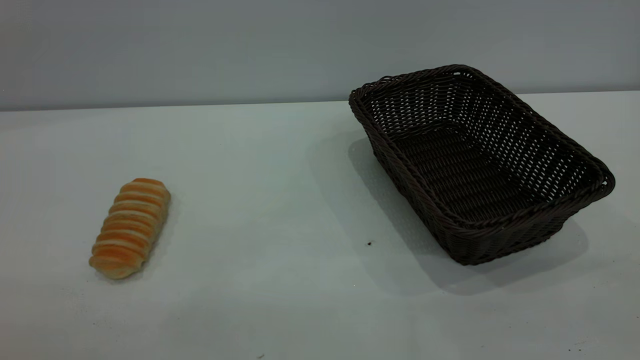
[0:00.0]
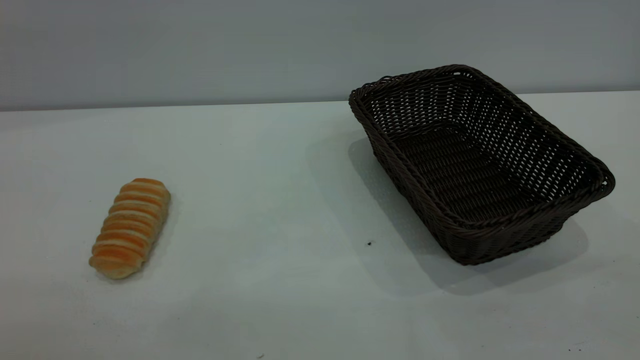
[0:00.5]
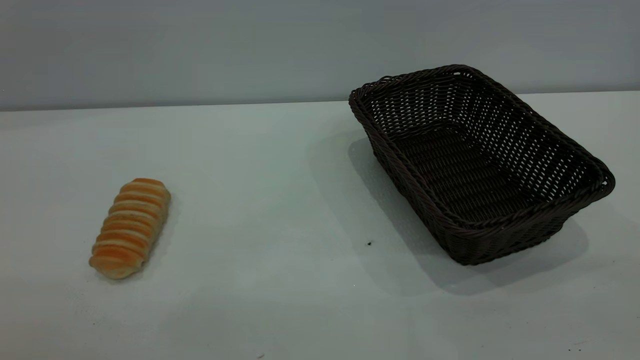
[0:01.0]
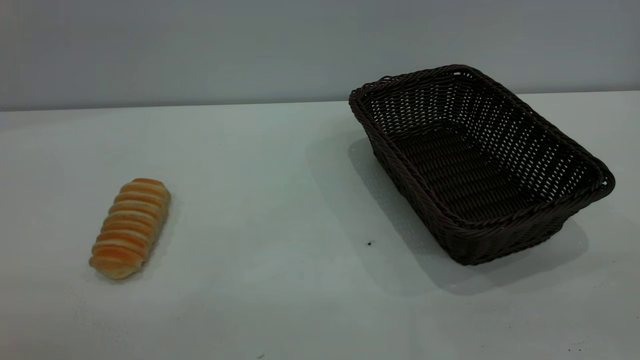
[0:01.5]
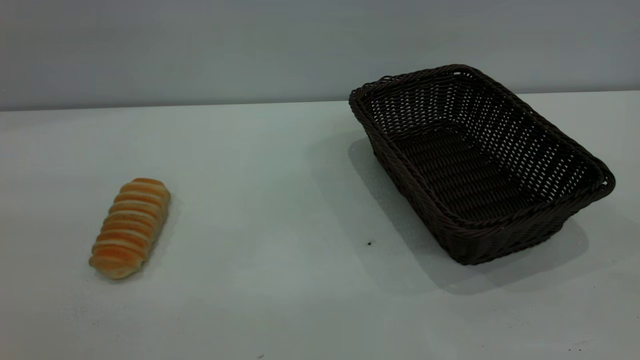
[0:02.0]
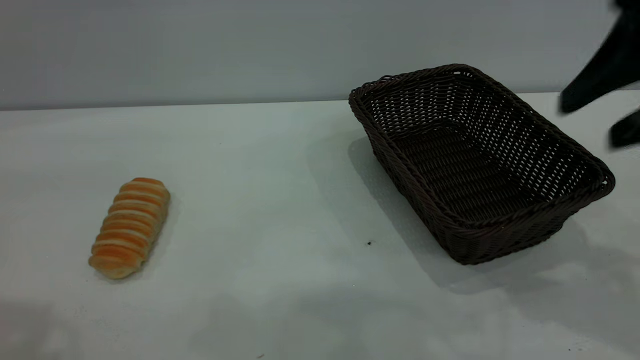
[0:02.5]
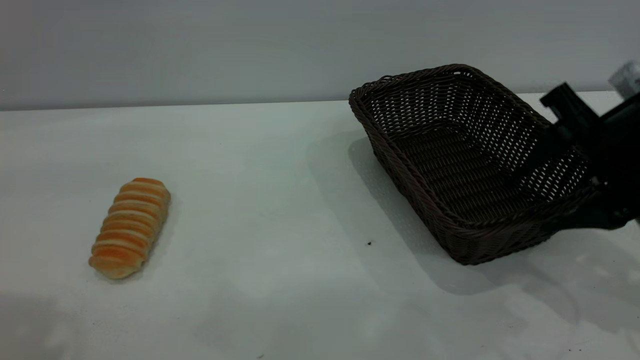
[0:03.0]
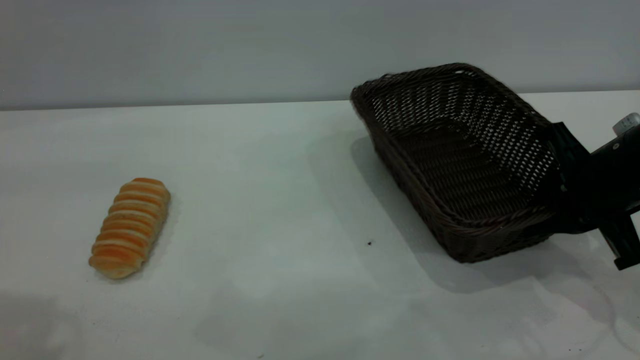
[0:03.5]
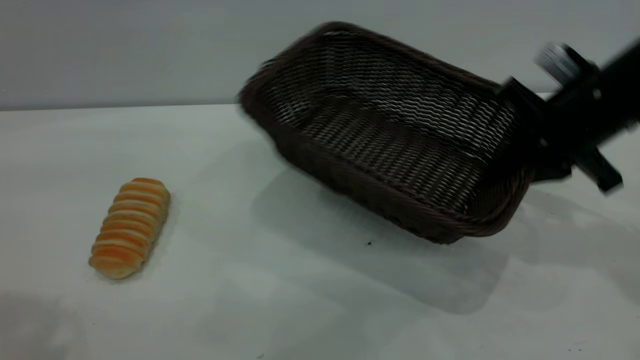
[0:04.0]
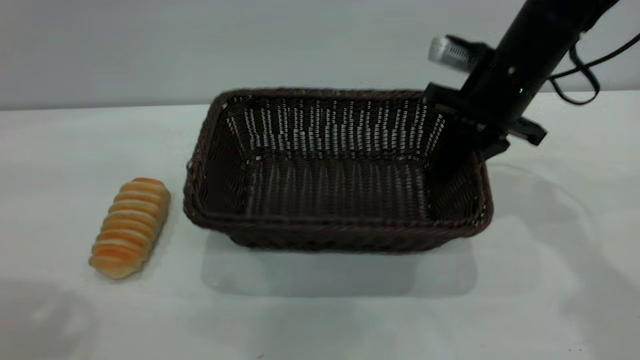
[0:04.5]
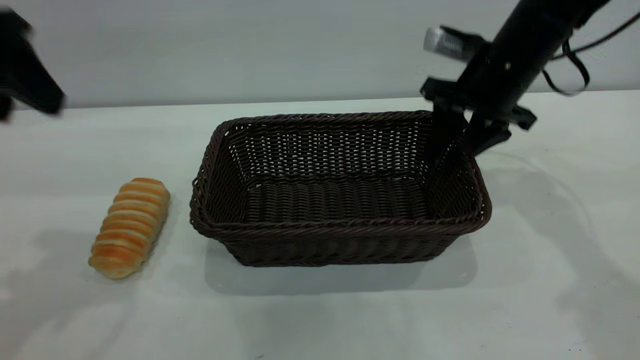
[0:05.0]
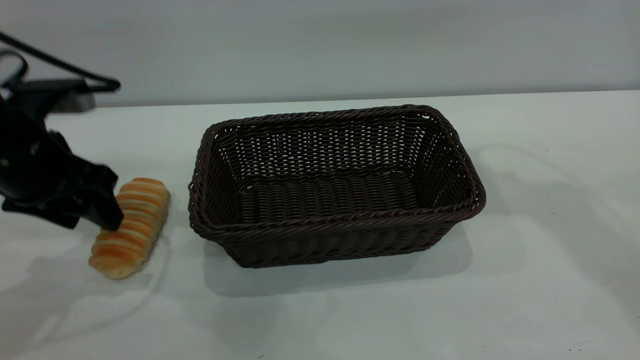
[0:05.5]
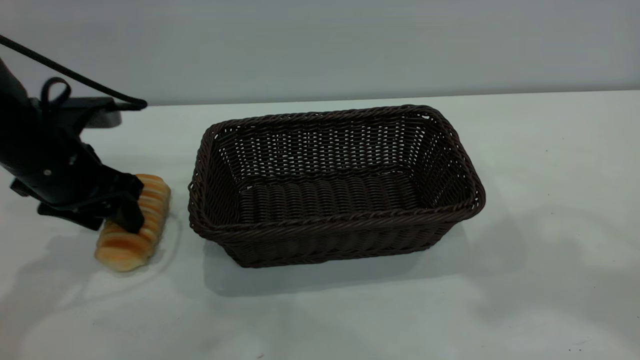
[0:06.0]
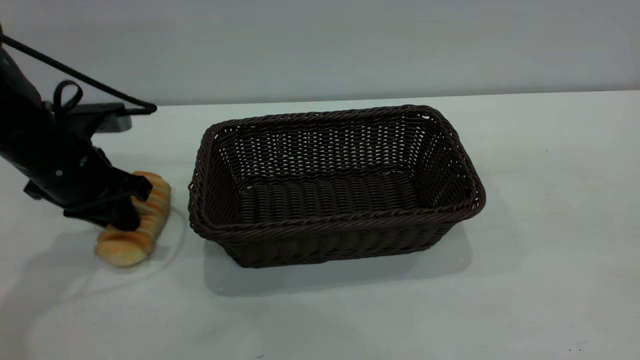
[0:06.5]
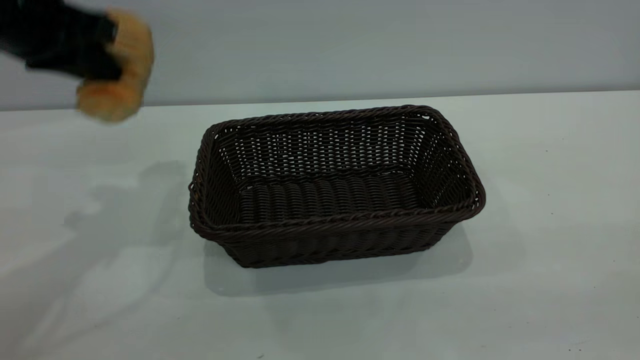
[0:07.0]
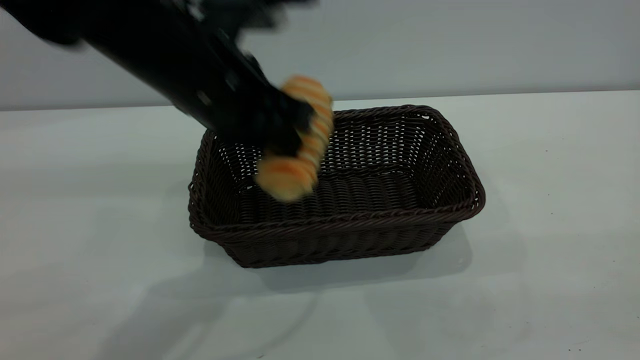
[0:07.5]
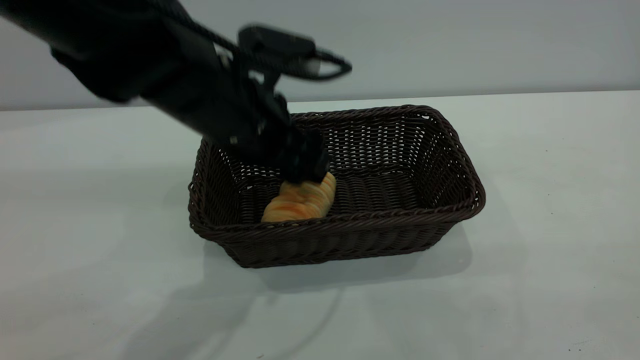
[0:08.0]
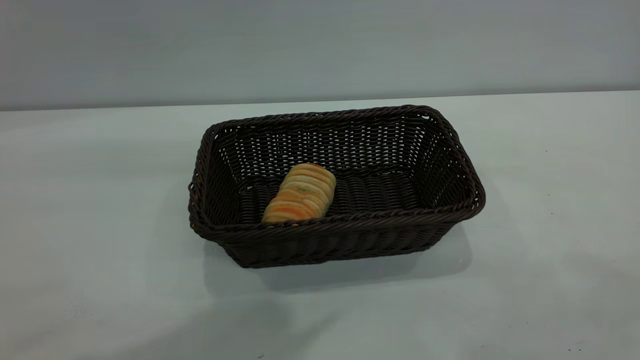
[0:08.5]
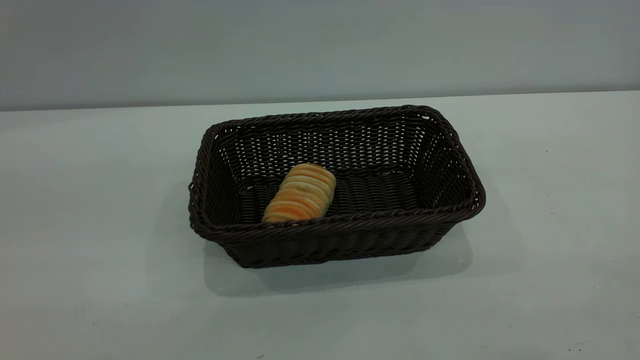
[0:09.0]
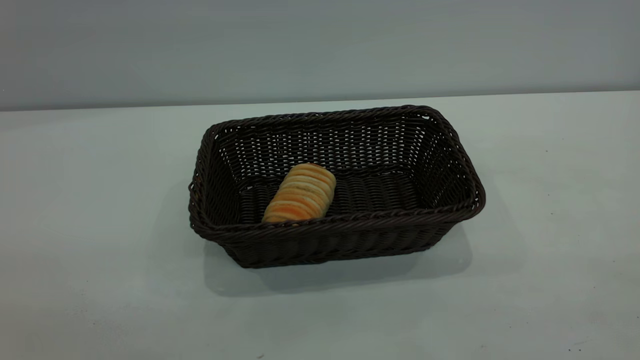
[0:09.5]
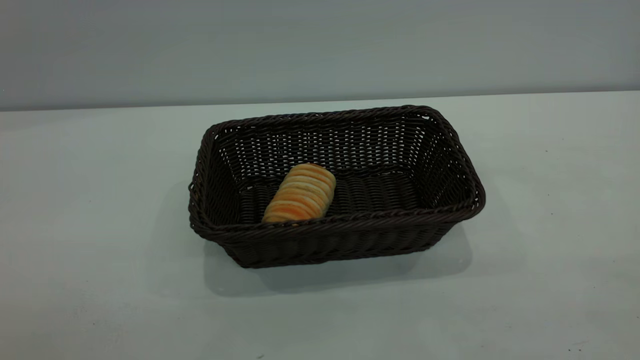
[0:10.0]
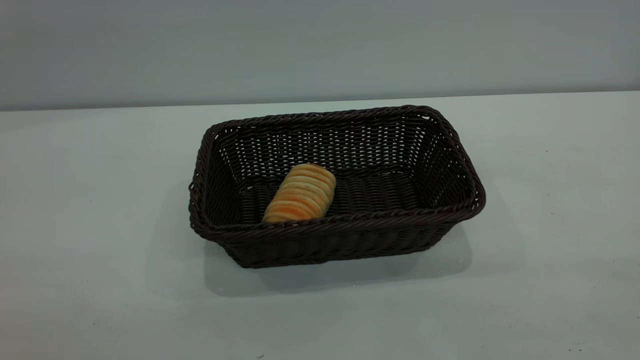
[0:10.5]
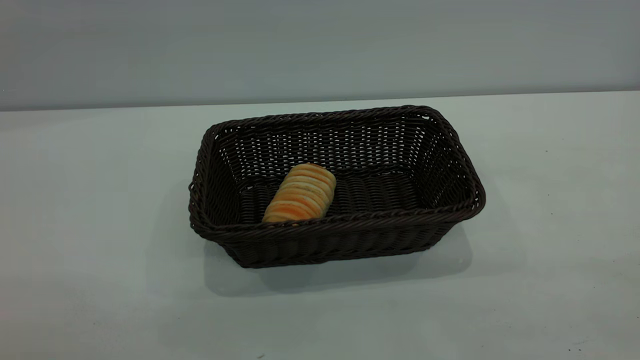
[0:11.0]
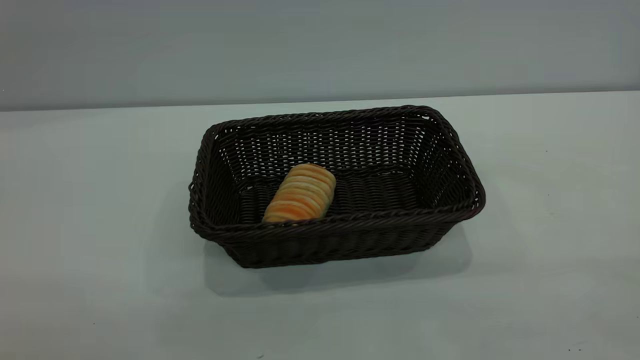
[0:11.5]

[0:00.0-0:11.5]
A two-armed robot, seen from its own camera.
Task of the whole recording: One hand grasps the black basket and places it in the middle of the table, while the other hand picks up the long bread and puts it into the black basket.
Step, 0:00.0 to 0:05.0: Move the basket to the center of view.
Step, 0:07.0 to 0:08.0: place the bread into the basket.
0:02.0 to 0:04.0: The left gripper shifts some 10 cm forward. The right gripper moves forward and downward, about 30 cm, and closes its fingers.
0:04.0 to 0:06.0: The right gripper is displaced upward by approximately 30 cm, and opens. The left gripper shifts approximately 30 cm downward and forward.
0:06.0 to 0:07.5: The right gripper heads backward and downward, covering approximately 30 cm; the left gripper goes roughly 20 cm to the right and upward, and closes.
0:07.5 to 0:09.5: The left gripper moves backward, to the left and upward, approximately 35 cm, and opens its fingers.
